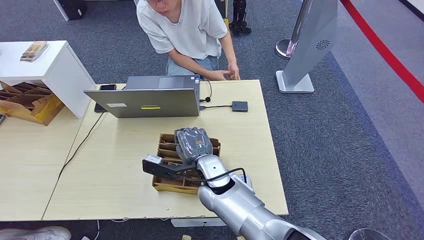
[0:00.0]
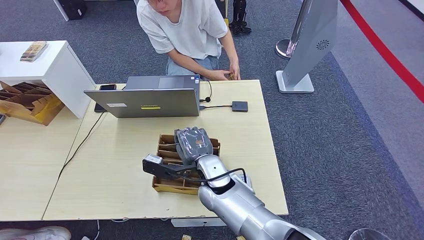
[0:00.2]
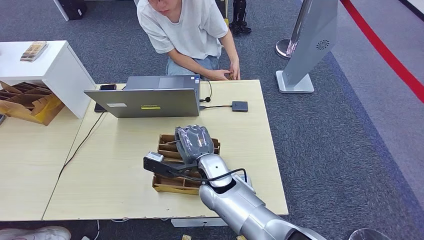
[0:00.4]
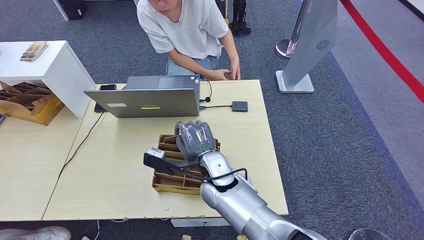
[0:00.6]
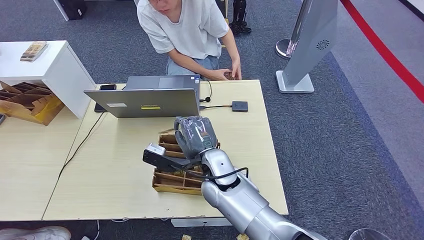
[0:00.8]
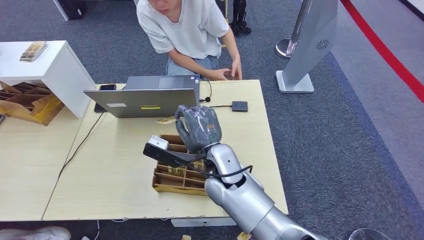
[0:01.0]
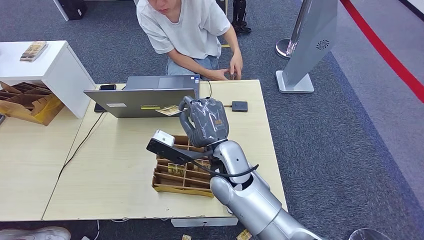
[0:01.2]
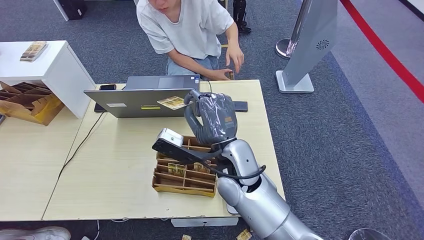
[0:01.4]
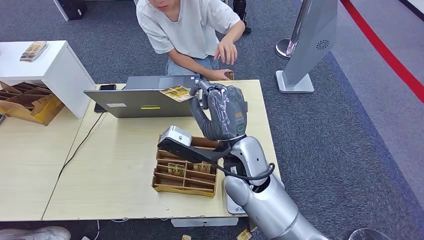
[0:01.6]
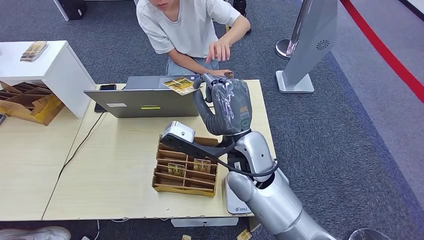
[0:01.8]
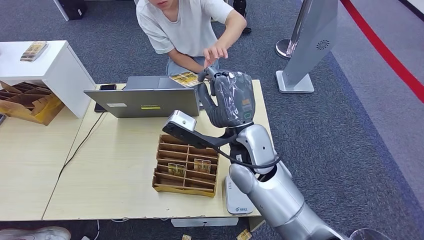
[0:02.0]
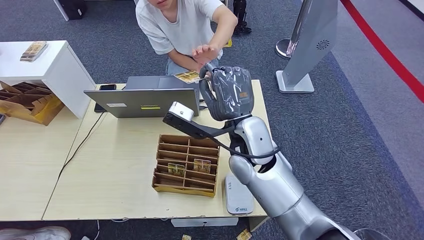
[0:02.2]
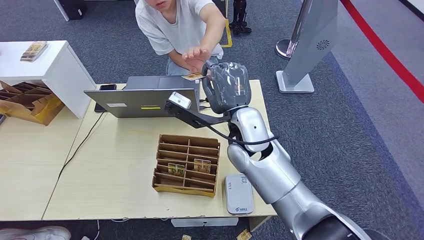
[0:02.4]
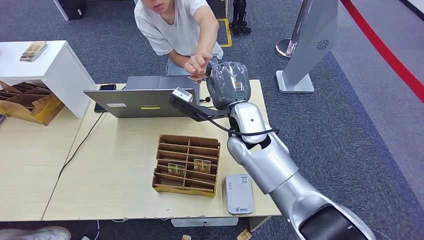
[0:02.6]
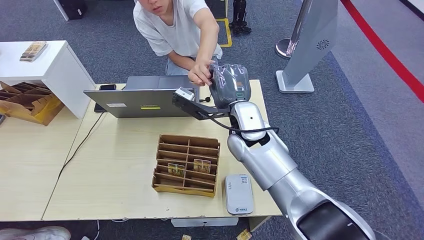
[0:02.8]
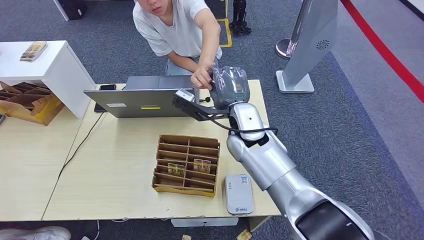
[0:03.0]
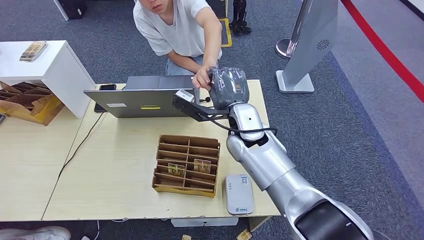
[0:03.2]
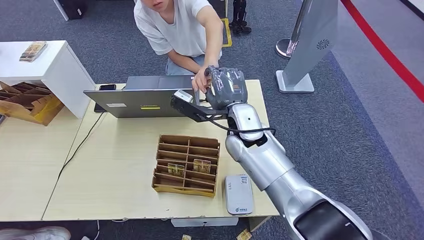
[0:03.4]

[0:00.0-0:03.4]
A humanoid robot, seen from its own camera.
Step, 0:01.4 to 0:03.2: Hand the room key to the person.
0:00.0 to 0:01.6: The right hand is displaced upward by roughly 10 cm.
0:01.6 to 0:03.4: The right hand moves forward, roughly 10 cm.
